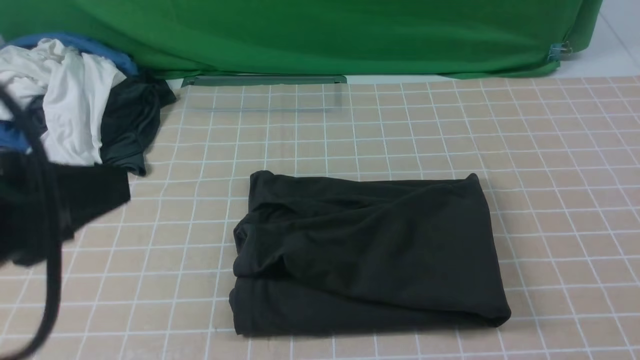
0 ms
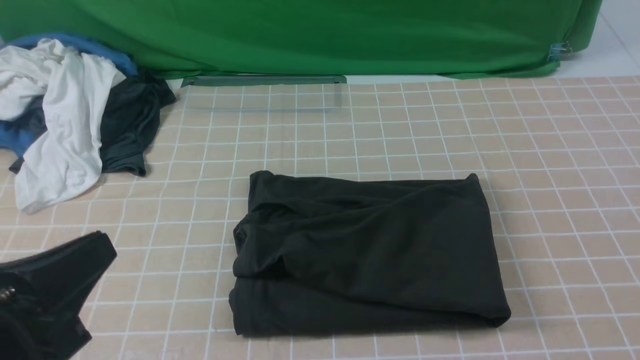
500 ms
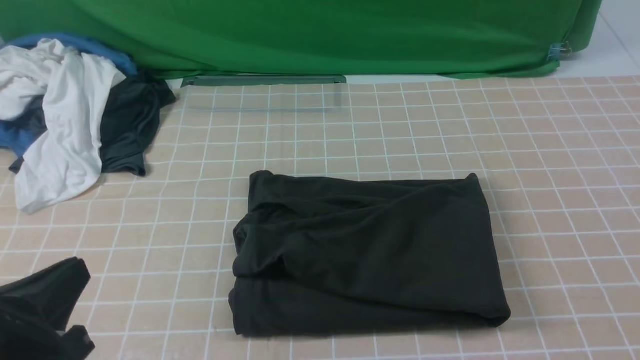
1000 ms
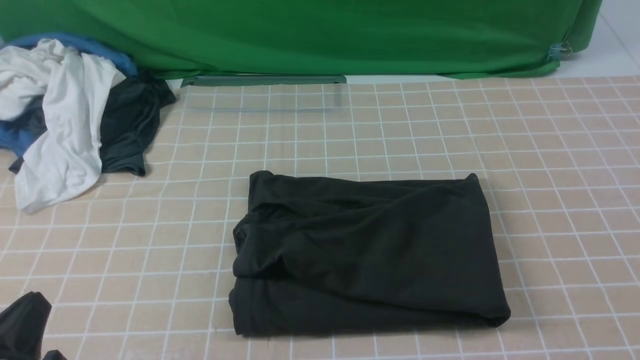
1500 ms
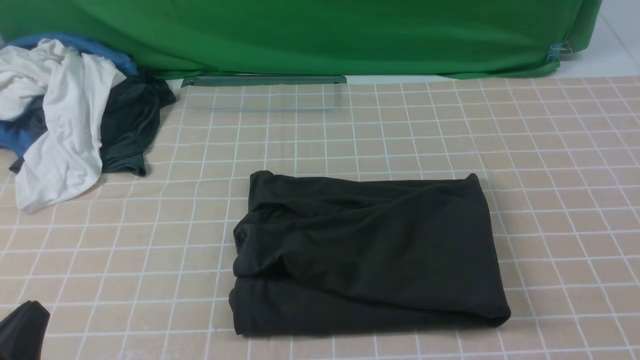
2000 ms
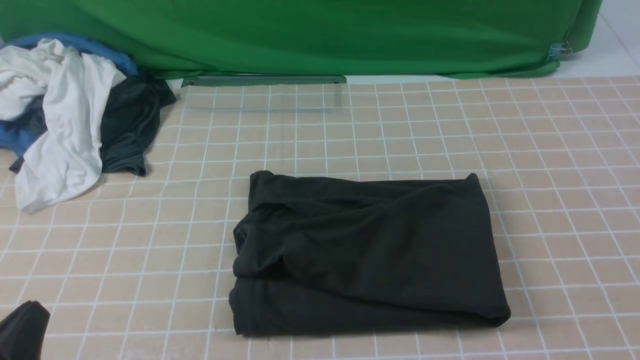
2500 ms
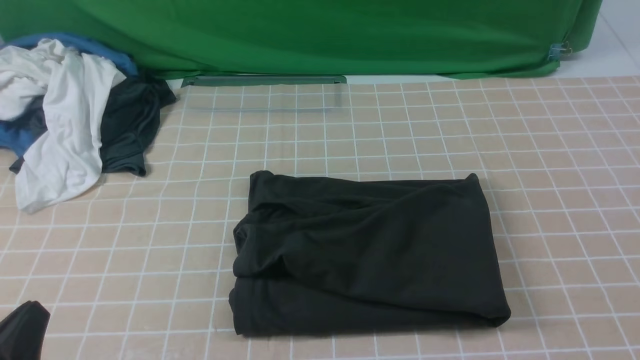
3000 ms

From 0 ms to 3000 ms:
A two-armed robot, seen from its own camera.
From 0 ms to 1500 ms: The left gripper shifts some 20 cm downward.
From 1500 ms to 3000 ms: Neither gripper changes place.

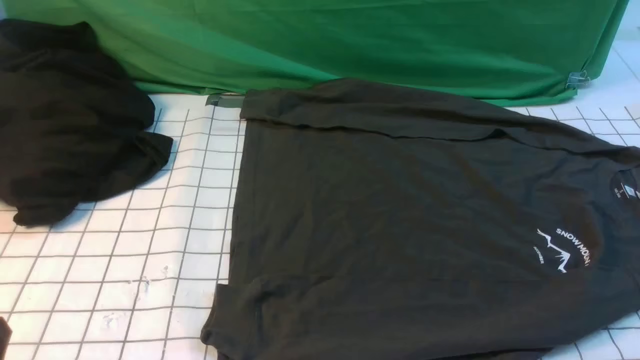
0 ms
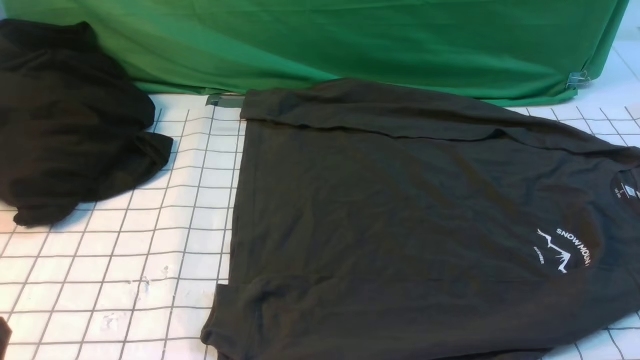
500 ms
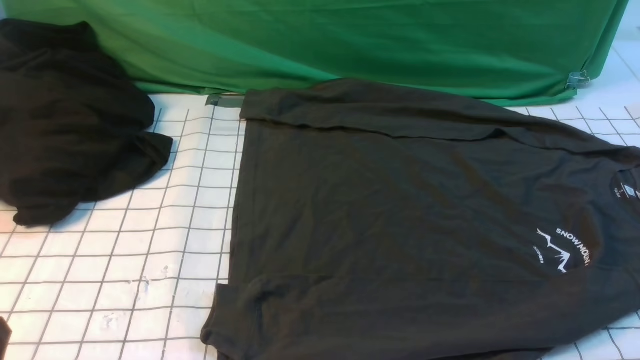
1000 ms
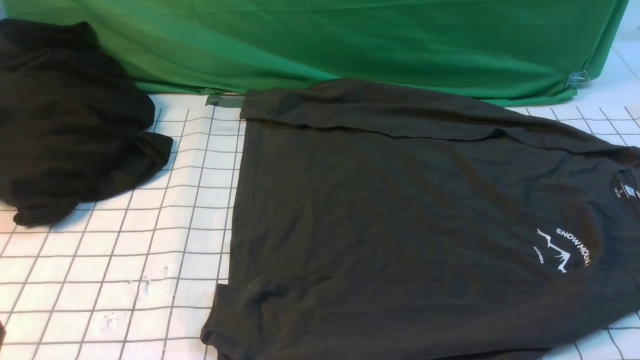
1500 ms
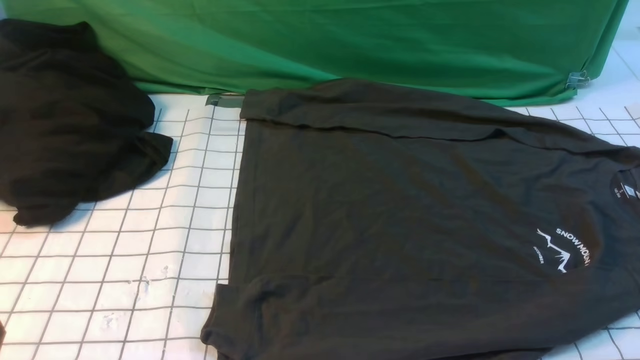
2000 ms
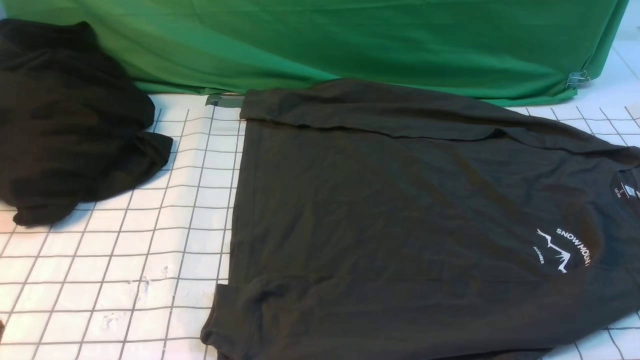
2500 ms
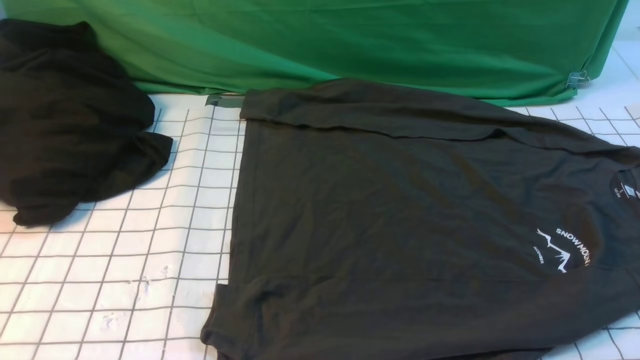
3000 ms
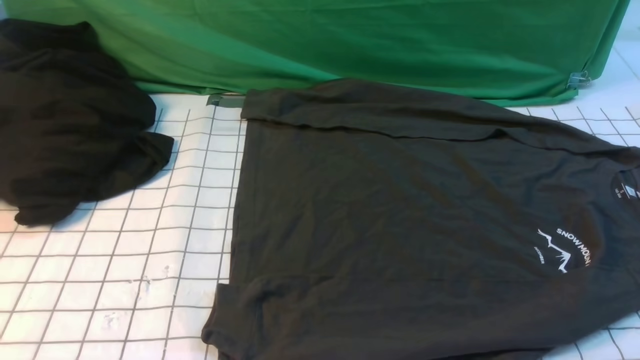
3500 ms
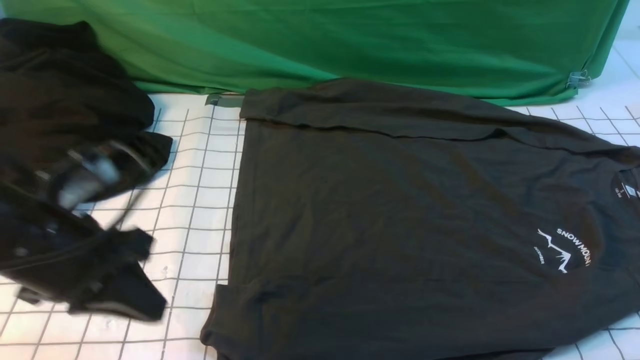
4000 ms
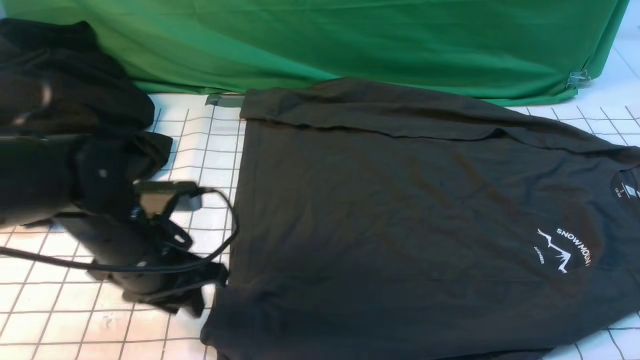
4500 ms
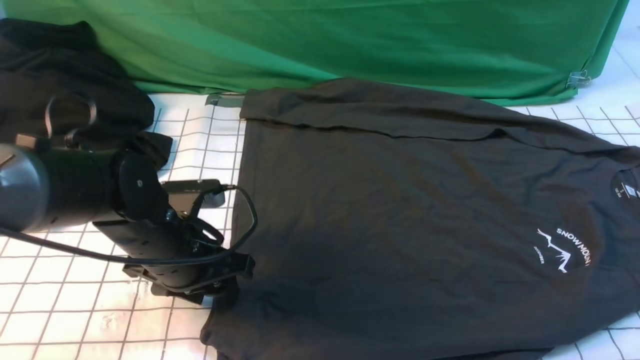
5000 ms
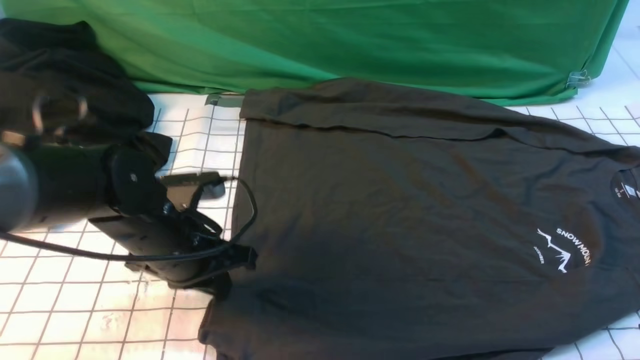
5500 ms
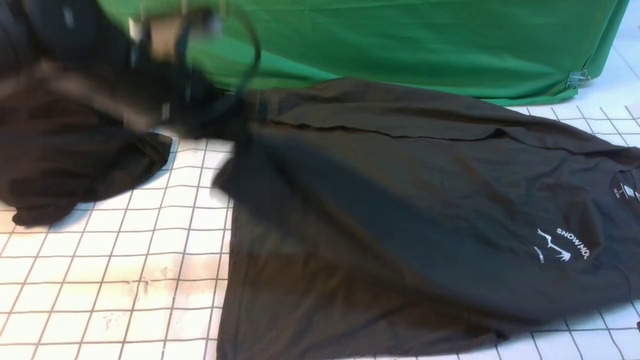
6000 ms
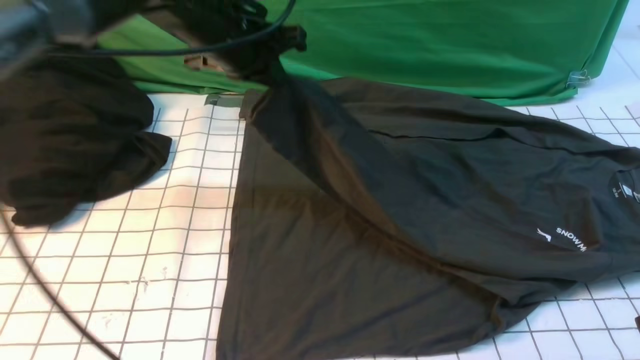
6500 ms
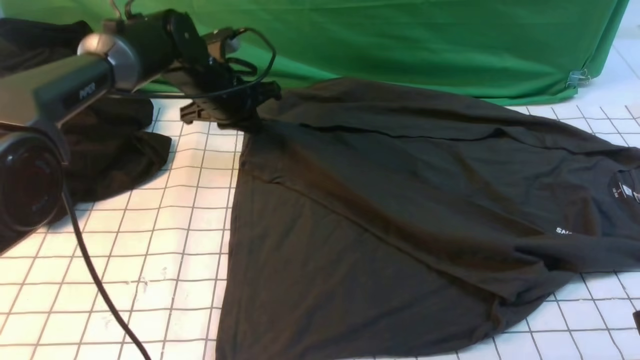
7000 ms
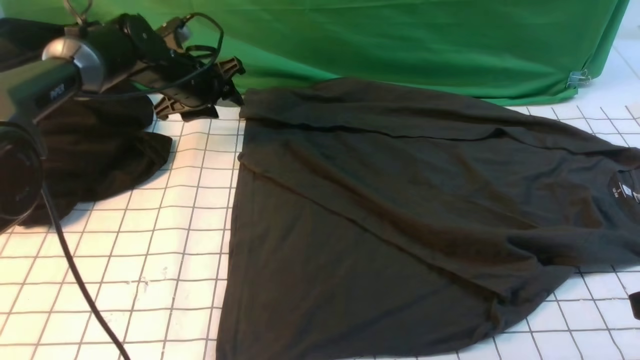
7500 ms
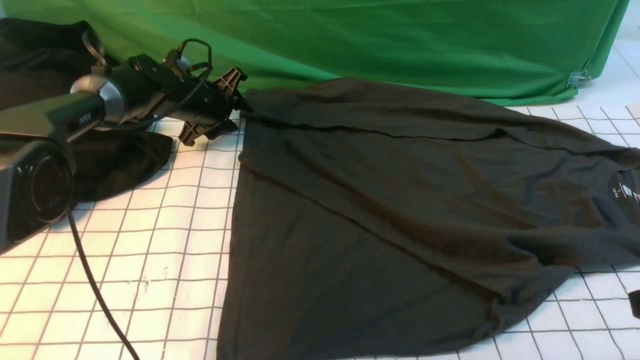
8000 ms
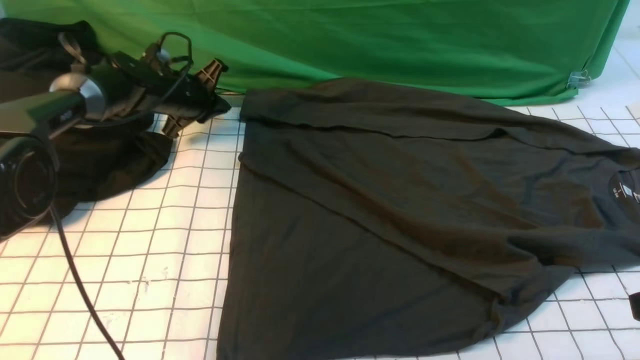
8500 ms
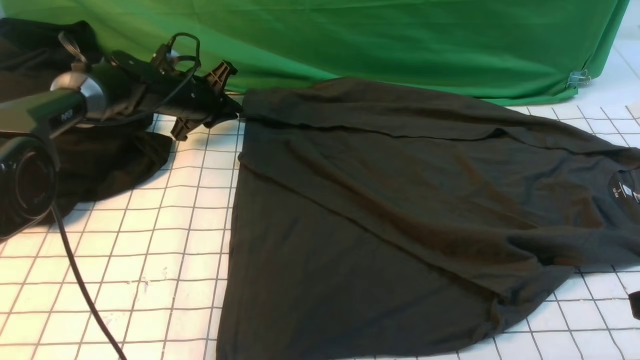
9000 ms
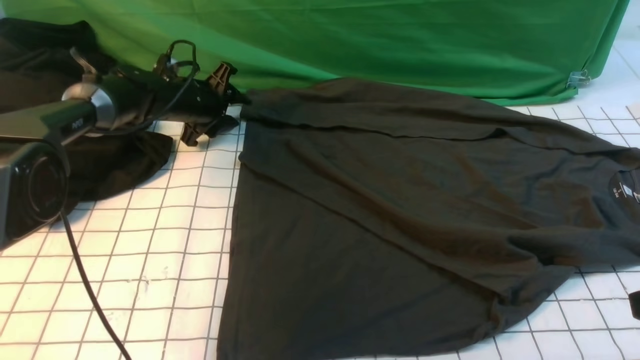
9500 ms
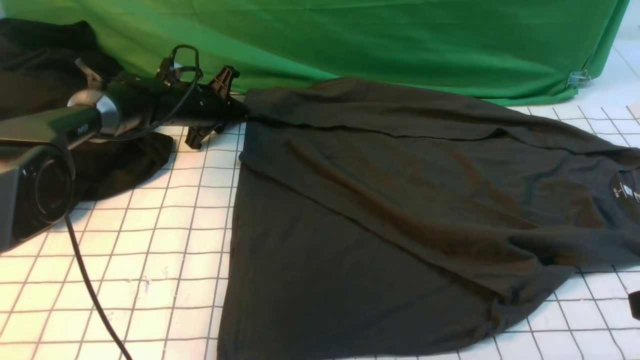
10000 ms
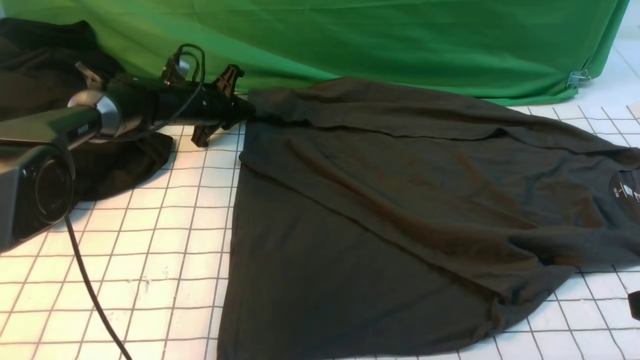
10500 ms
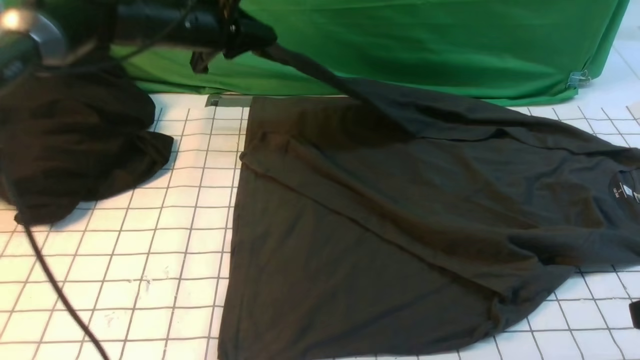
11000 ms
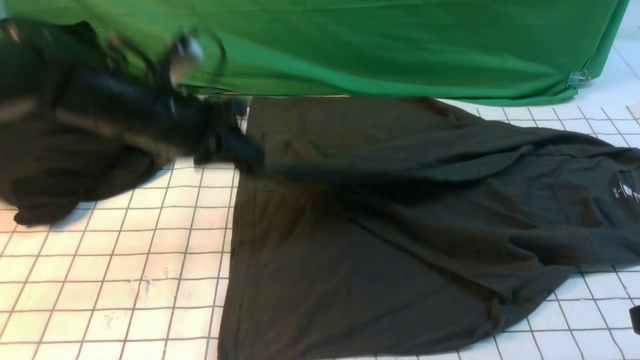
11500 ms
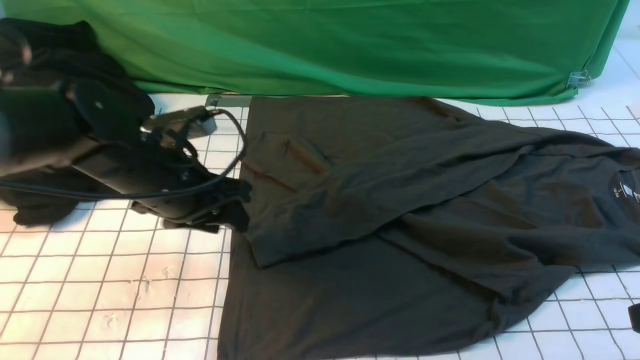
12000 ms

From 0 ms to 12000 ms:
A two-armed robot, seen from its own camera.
Step, from 0 ms to 5000 ms: use the left arm to clamp the cuff closest to it.
Step, from 5500 ms to 7000 ms: use the left arm to drag and place the cuff at the centered position on the left edge of the fabric.
Step, from 7500 ms to 10000 ms: use the left arm to clamp the cuff farthest from it.
Step, from 10500 ms to 12000 ms: use the left arm to drag and drop the cuff onto the cuff closest to the left arm.
From 2000 ms to 4000 ms: The left gripper shifts roughly 20 cm forward and upward.
From 4000 ms to 6000 ms: The left gripper heads forward, to the right and upward, covering roughly 15 cm, and opens, then closes again.
From 6000 ms to 8000 ms: The left gripper goes about 30 cm forward and downward, and opens its fingers.
From 8000 ms to 10000 ms: The left gripper closes up.
From 10000 ms to 12000 ms: The left gripper moves backward and upward, about 25 cm, and opens up.

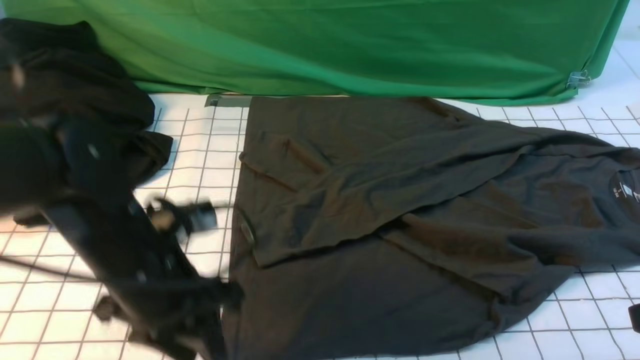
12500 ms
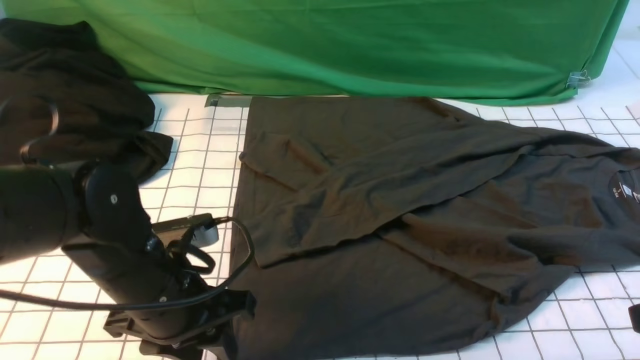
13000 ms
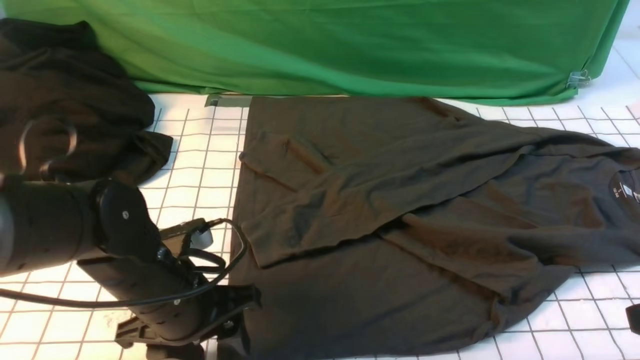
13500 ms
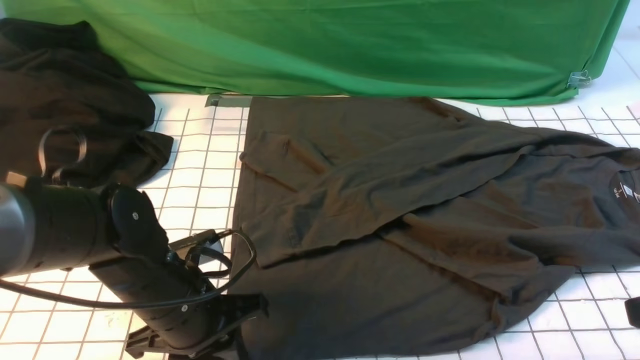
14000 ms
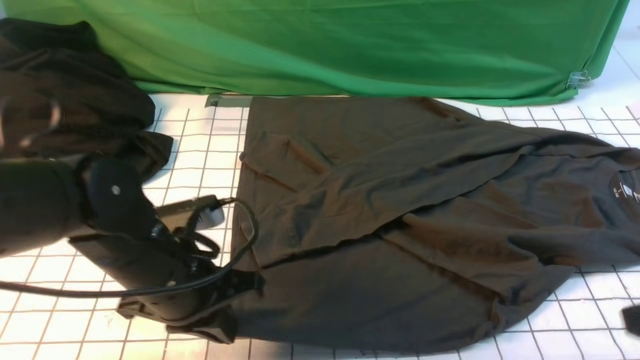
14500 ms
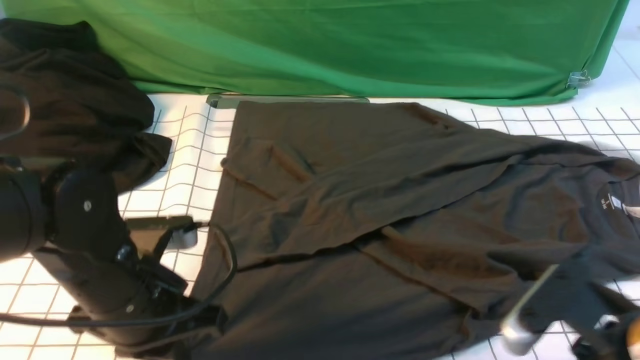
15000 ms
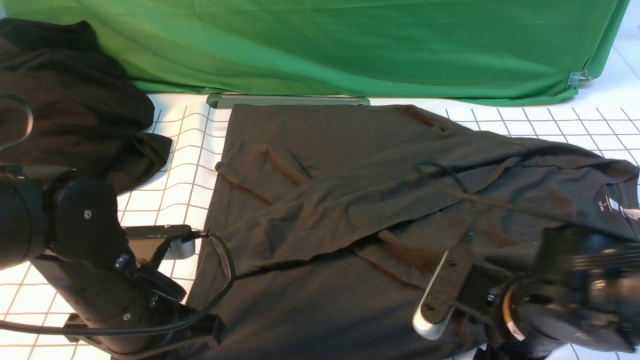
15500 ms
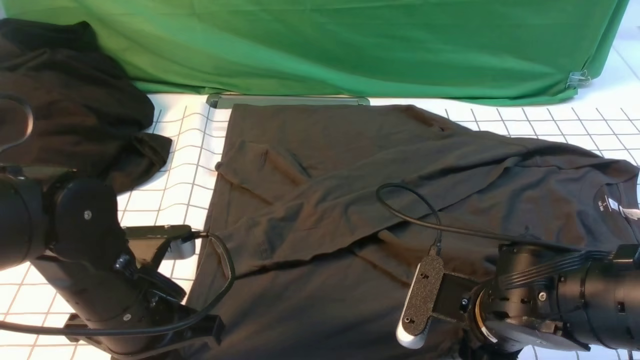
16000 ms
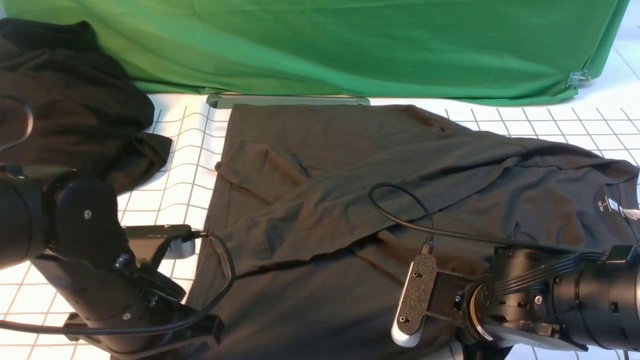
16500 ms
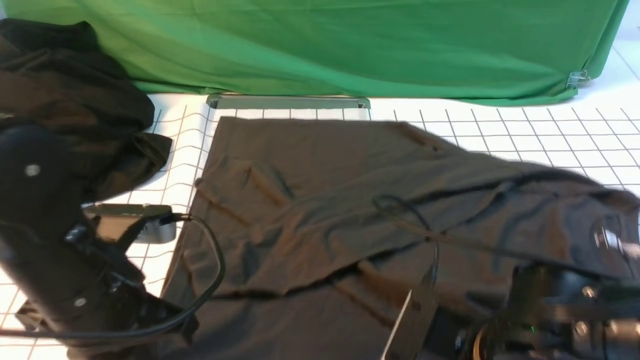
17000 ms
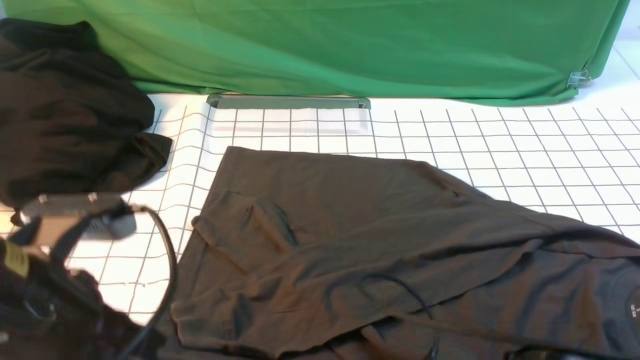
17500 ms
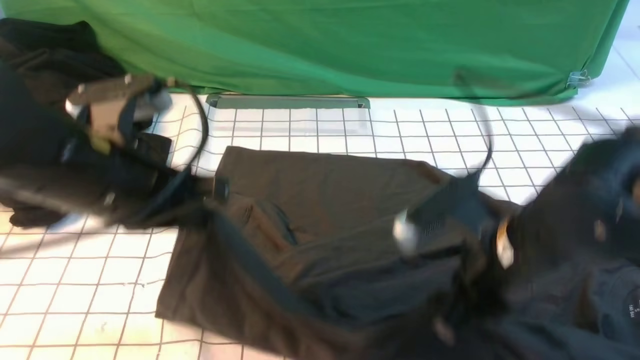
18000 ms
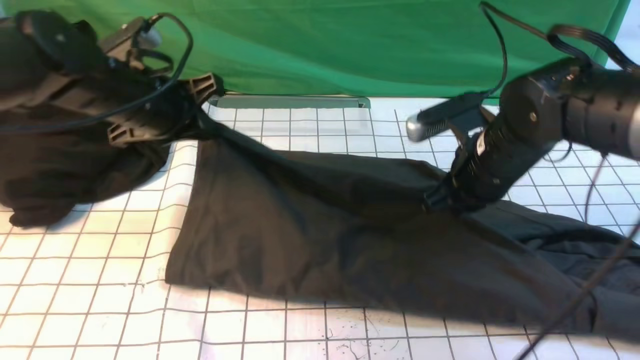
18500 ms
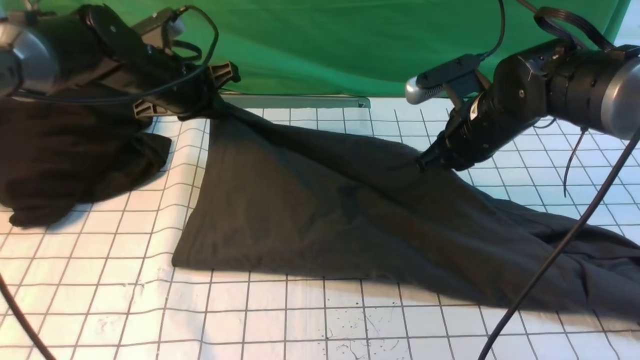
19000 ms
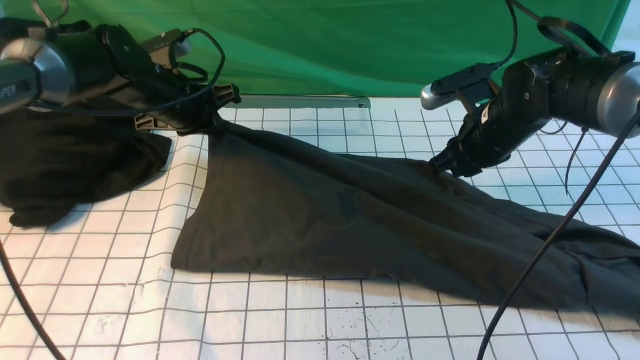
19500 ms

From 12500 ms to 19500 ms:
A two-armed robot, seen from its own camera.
Step, from 12500 ms to 16500 ms: use both arms simultaneously to clamp the lower edge of the clothing fabric.
From 12500 ms to 14500 ms: The left gripper closes.
From 14500 ms to 16000 ms: The right gripper goes about 20 cm to the left, downward and forward.
From 16000 ms to 17500 ms: The left gripper is displaced upward and backward by some 10 cm, while the right gripper goes roughly 10 cm backward, and closes its fingers.
From 17500 ms to 19500 ms: The two grippers go about 30 cm forward. The right gripper opens up.
